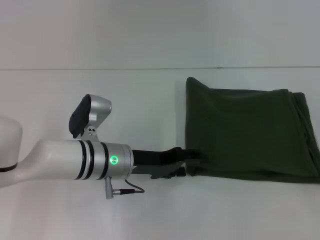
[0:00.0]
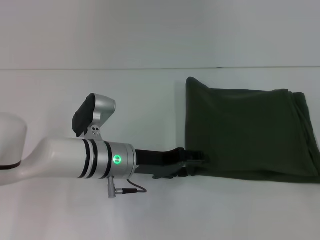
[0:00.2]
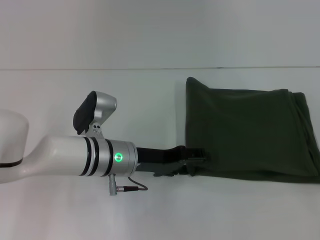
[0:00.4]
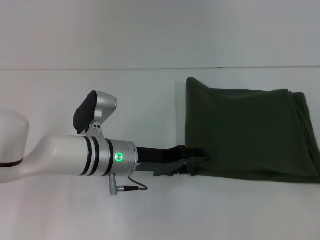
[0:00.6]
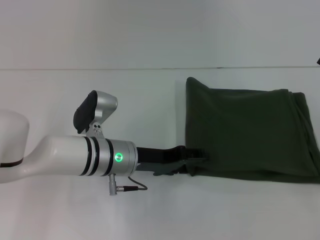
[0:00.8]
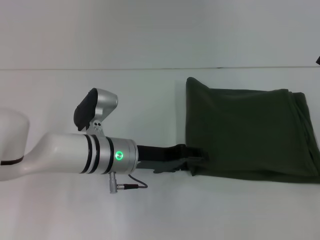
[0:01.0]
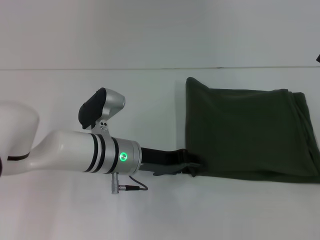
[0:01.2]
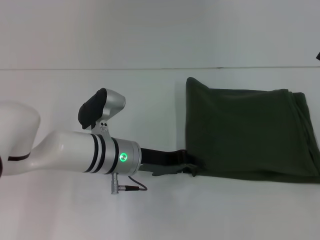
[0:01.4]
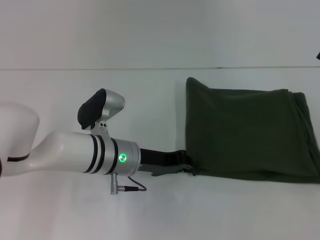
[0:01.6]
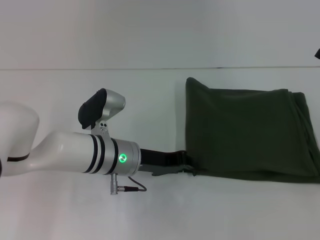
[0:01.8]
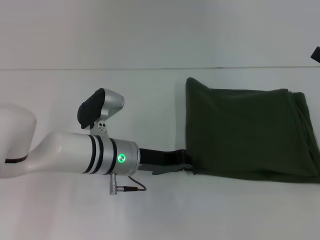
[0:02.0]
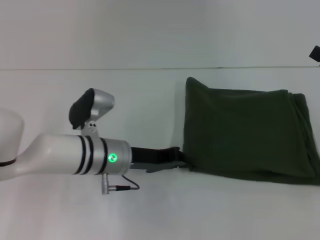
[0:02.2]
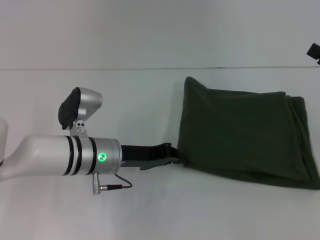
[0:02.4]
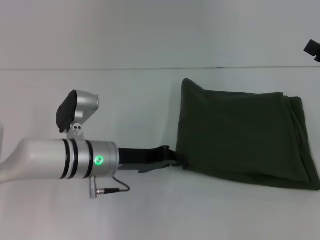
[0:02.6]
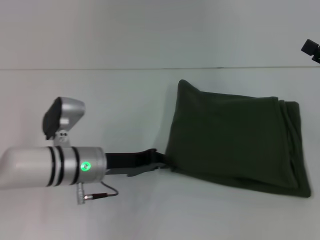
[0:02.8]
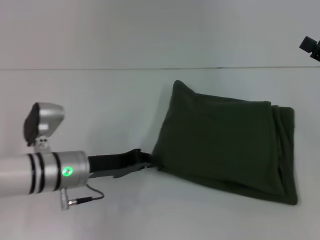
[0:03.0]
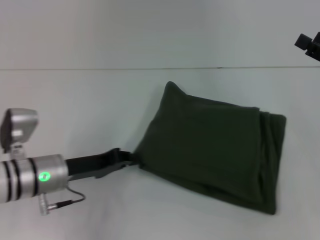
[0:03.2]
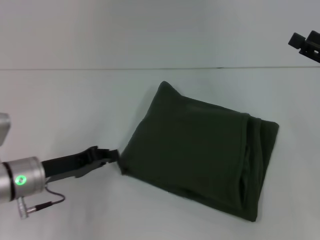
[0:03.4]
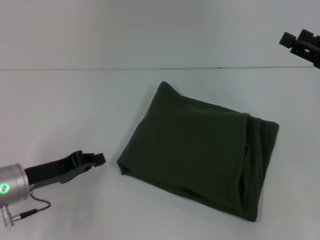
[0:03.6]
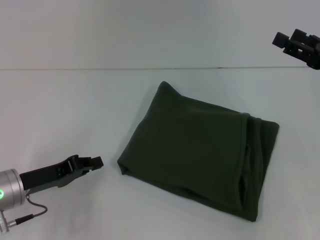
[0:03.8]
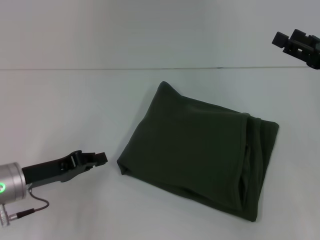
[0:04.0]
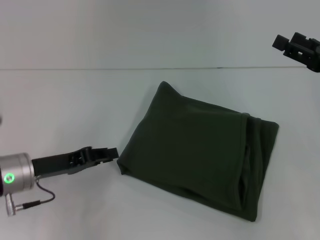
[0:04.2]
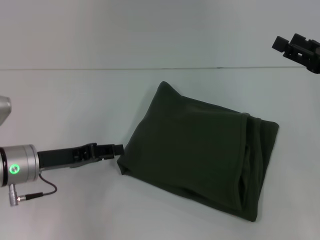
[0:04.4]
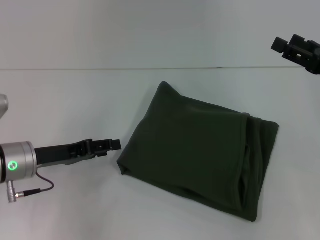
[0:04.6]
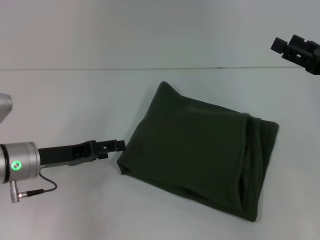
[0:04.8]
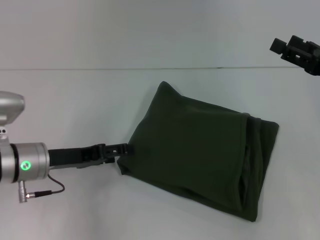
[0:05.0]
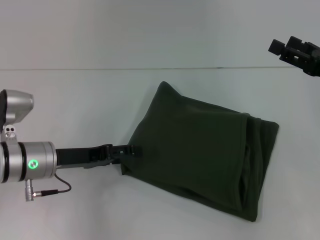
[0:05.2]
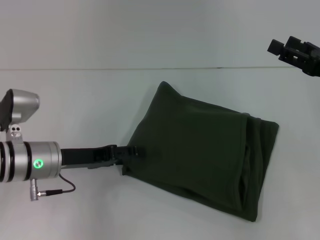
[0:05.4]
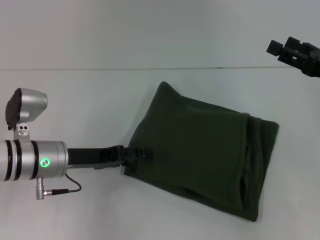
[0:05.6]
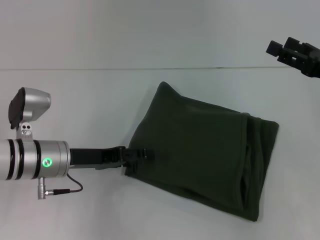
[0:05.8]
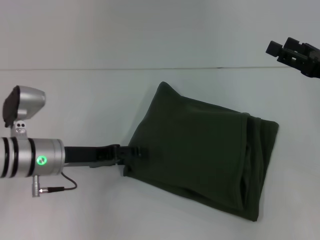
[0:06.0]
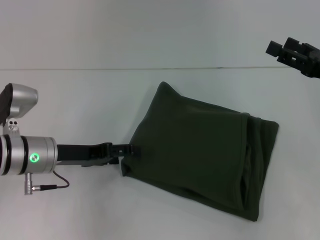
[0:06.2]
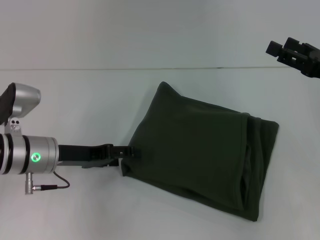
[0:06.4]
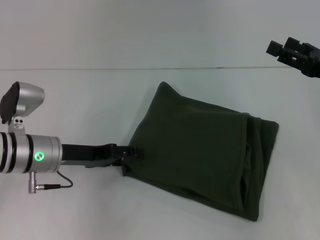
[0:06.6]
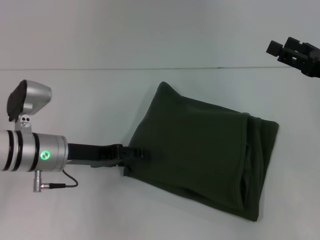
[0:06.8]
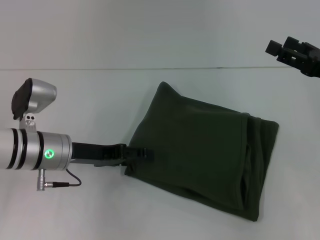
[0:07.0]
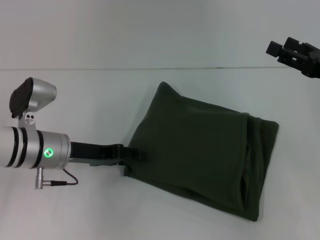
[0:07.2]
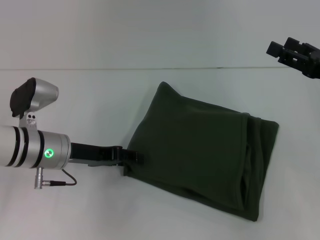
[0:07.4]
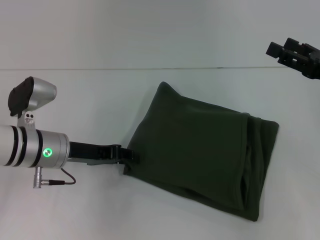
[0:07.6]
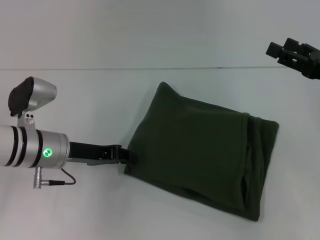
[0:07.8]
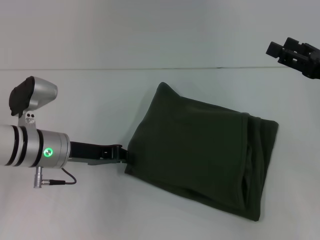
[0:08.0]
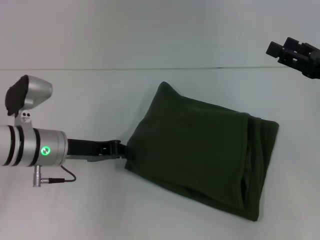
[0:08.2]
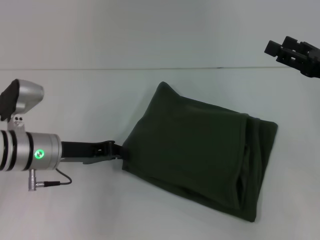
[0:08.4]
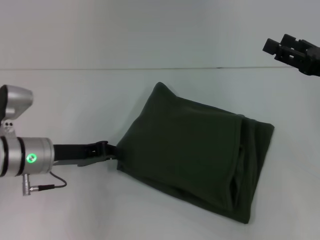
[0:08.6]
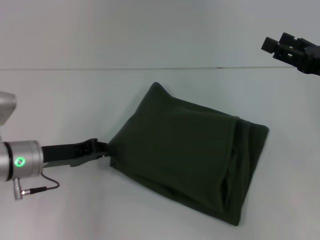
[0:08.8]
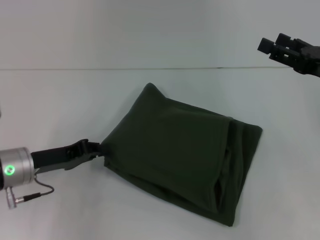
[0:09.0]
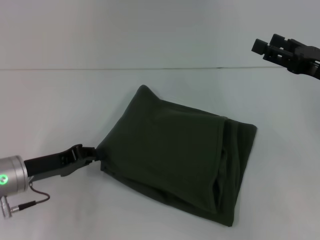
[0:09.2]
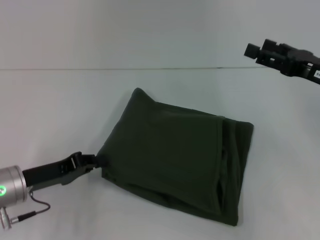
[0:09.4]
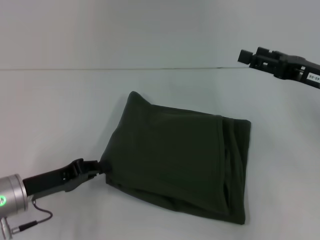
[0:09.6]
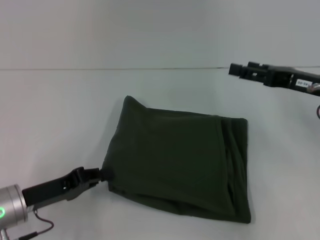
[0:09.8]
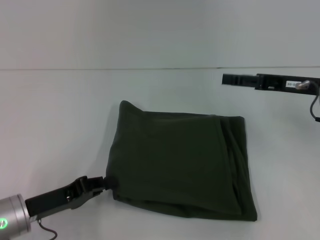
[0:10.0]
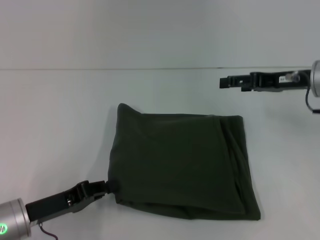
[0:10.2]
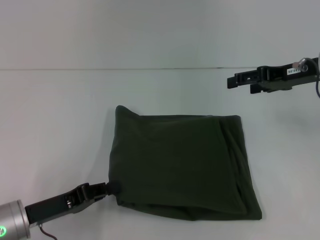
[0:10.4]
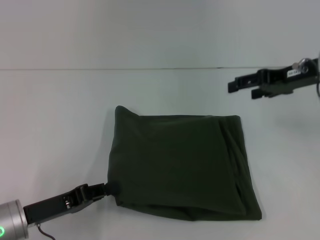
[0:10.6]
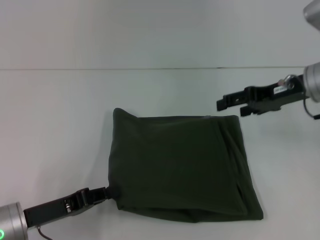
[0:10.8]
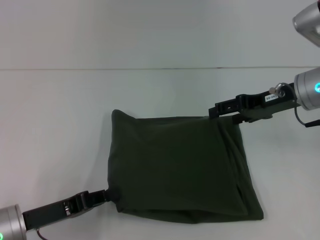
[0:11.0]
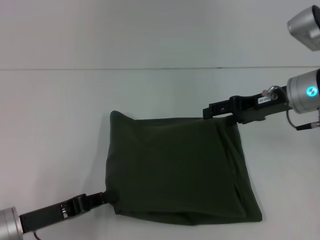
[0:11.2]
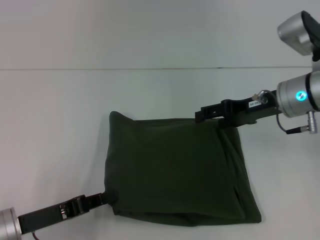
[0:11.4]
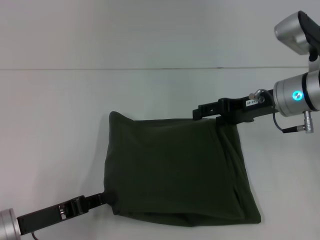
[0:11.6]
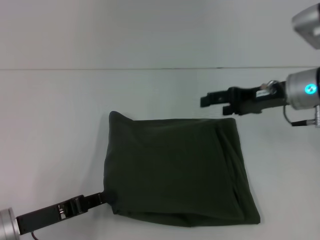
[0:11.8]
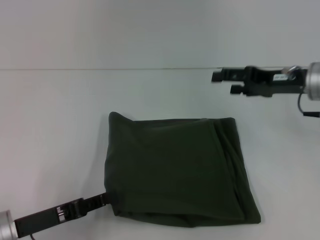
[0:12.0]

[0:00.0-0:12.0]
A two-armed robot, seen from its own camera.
0.0 to 1.6 s: The left gripper closes.
1.6 to 3.0 s: The left gripper moves to the left, approximately 10 cm.
3.0 to 4.4 s: The left gripper shifts roughly 5 cm to the left.
4.4 to 6.0 s: The left gripper opens.
6.0 to 7.6 s: The left gripper closes.
7.6 to 9.0 s: The left gripper changes place by roughly 5 cm, and closes up.
9.0 to 10.4 s: The right gripper is displaced forward by some 5 cm, while the left gripper goes approximately 10 cm backward.

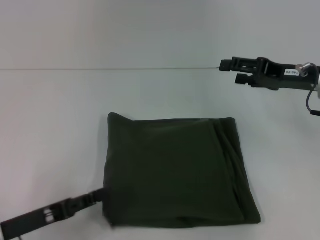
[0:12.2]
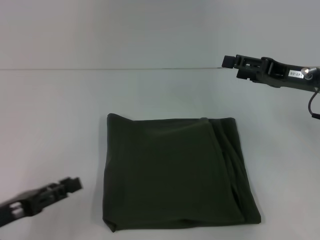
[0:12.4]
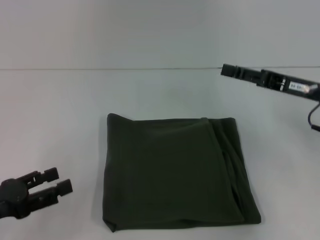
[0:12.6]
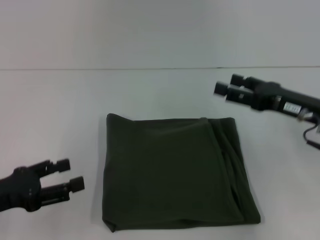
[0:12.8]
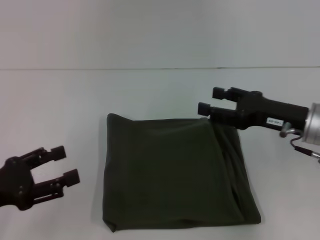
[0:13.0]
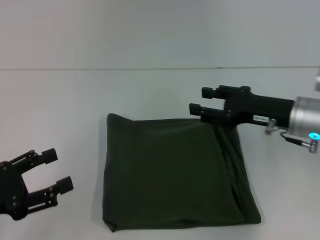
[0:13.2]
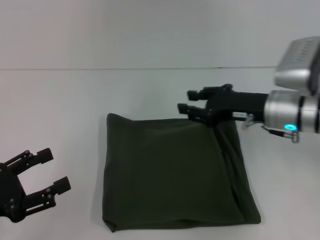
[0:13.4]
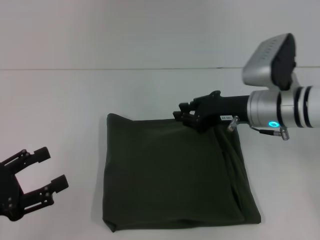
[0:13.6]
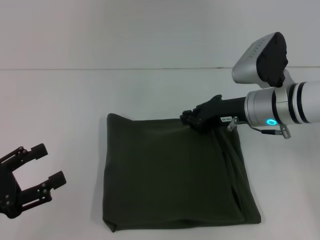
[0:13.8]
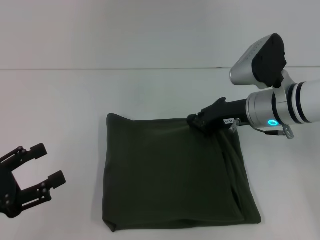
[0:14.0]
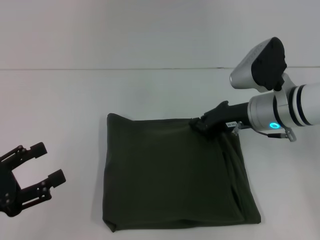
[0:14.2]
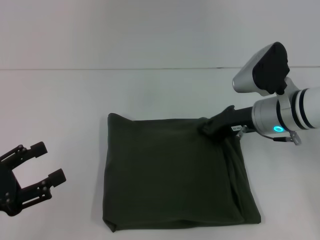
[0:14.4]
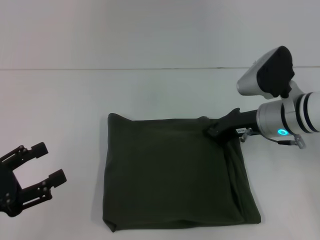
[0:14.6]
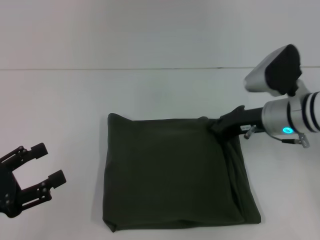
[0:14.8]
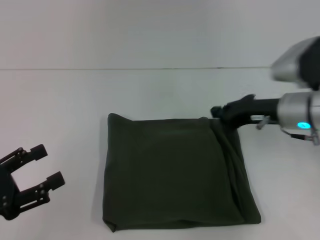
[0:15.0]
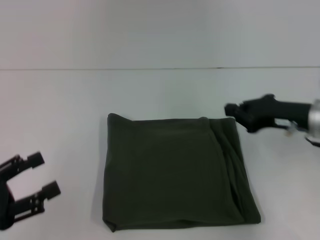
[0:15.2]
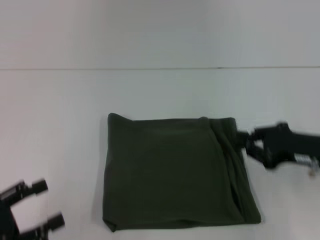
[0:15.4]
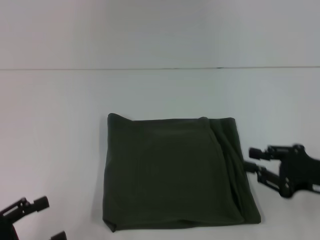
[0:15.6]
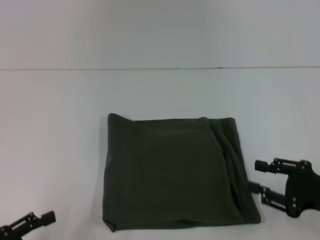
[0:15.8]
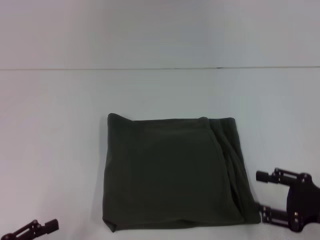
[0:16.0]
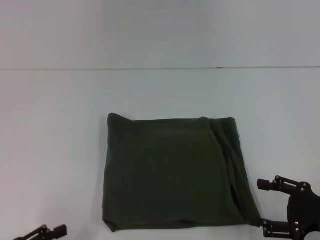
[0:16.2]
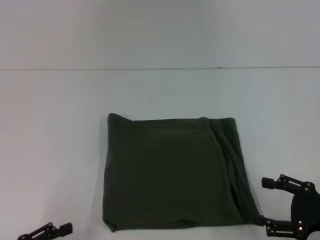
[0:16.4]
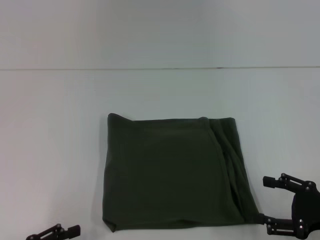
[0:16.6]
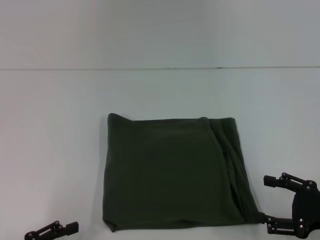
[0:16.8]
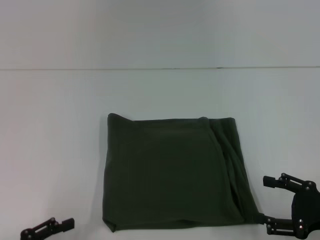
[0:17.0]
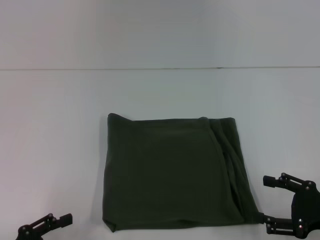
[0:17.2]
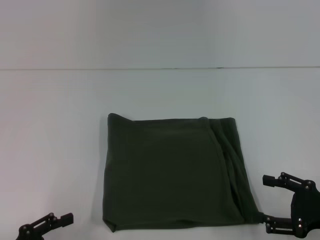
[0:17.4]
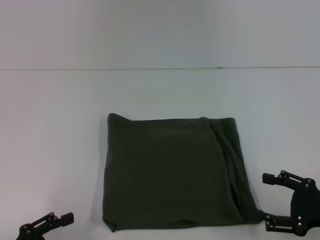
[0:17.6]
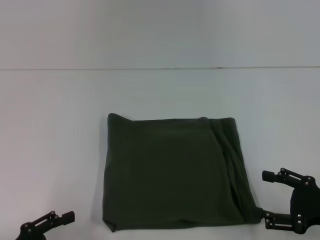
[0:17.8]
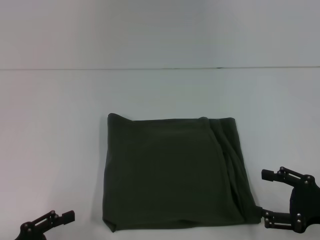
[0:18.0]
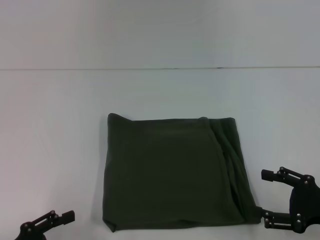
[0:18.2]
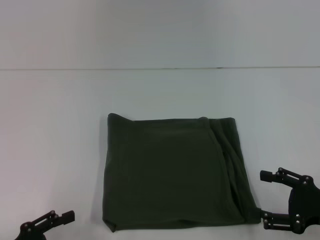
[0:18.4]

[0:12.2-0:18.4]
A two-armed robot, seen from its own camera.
12.2 to 13.8 s: The left gripper travels upward and to the left by approximately 5 cm, and opens. Meanwhile the right gripper travels to the left by about 10 cm, and closes its fingers.
13.8 to 15.4 s: The right gripper heads to the right and backward, covering some 15 cm.
15.4 to 16.8 s: The right gripper moves backward, roughly 10 cm, and opens up; the left gripper shifts approximately 5 cm downward.
16.8 to 18.4 s: Neither gripper changes place.

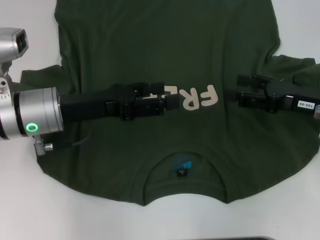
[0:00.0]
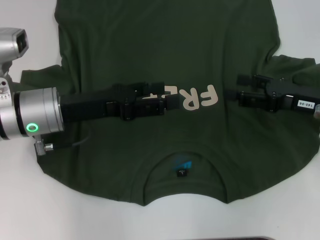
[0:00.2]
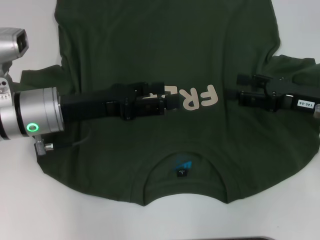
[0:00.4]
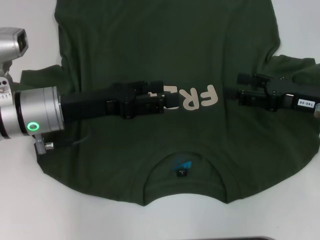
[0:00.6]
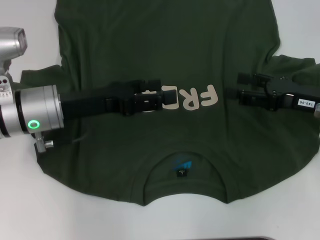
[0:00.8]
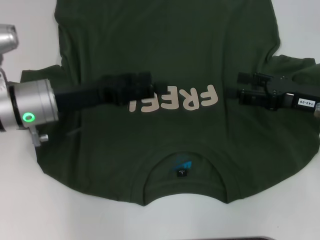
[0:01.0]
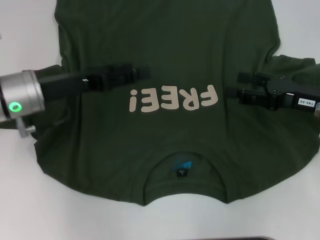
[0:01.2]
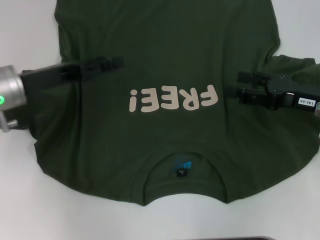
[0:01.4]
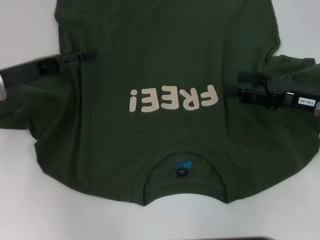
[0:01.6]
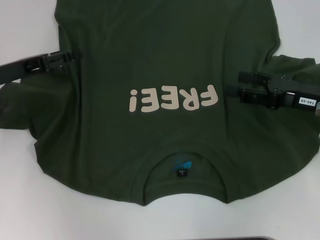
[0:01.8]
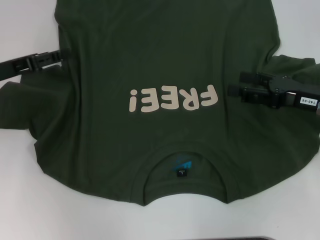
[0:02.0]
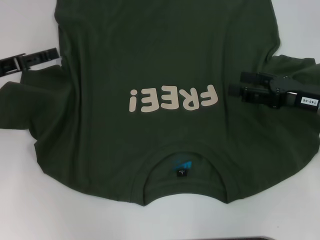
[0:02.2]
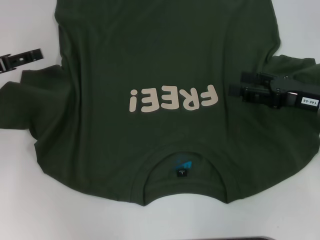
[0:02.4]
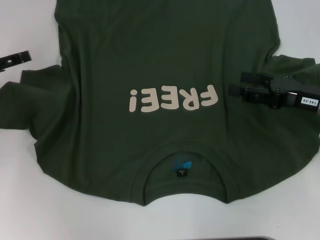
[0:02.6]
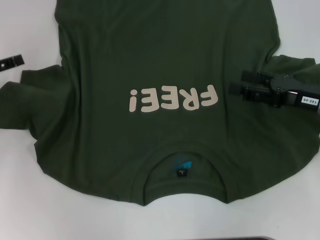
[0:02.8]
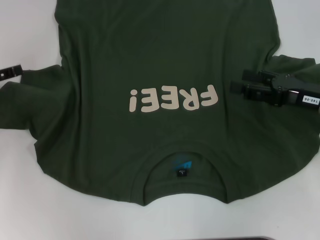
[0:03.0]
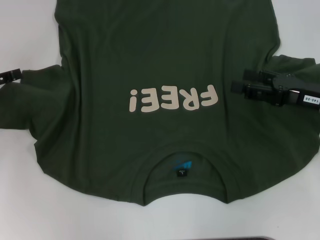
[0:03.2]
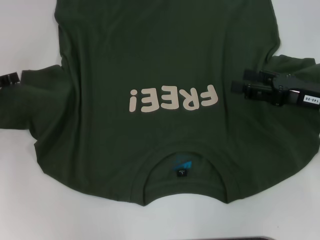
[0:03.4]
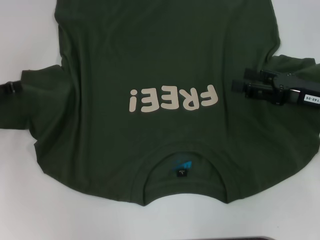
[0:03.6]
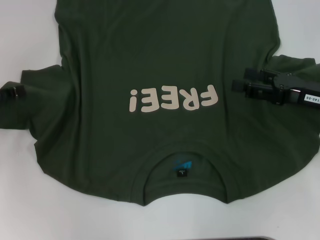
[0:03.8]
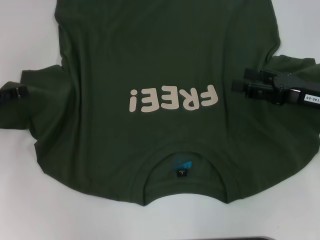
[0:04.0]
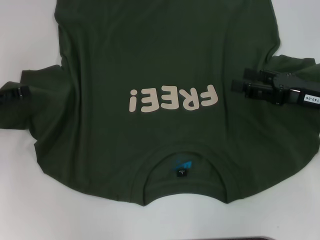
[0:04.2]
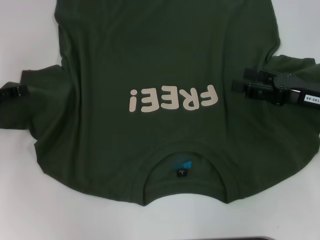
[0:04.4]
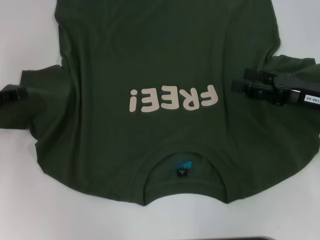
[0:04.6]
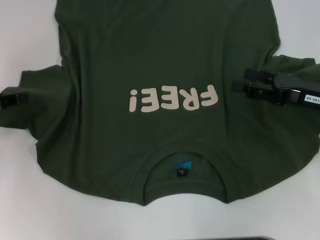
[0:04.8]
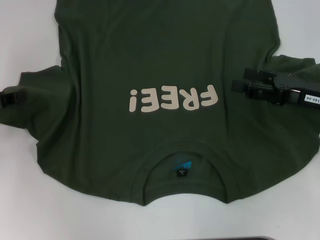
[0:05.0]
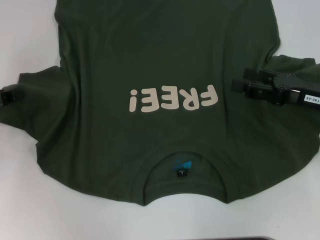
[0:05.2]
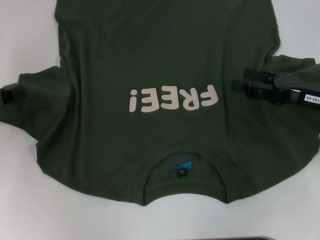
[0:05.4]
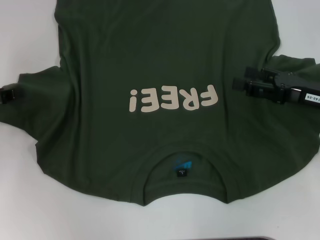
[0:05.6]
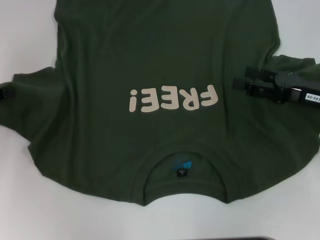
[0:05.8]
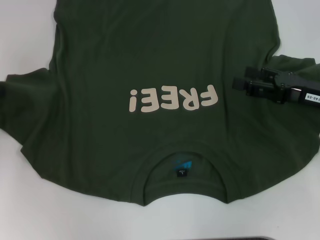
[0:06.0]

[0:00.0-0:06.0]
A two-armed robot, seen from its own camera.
0.0 to 1.6 s: The left gripper moves to the left, about 10 cm.
1.6 to 3.0 s: The left gripper goes about 10 cm to the left.
4.4 to 6.0 s: The left gripper closes its fingers.
